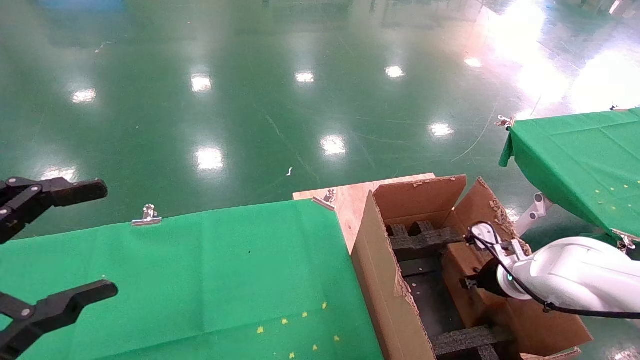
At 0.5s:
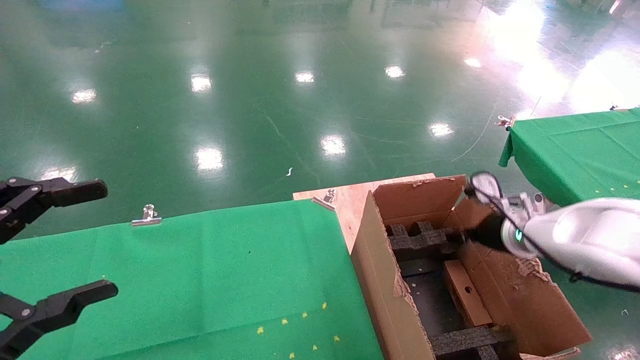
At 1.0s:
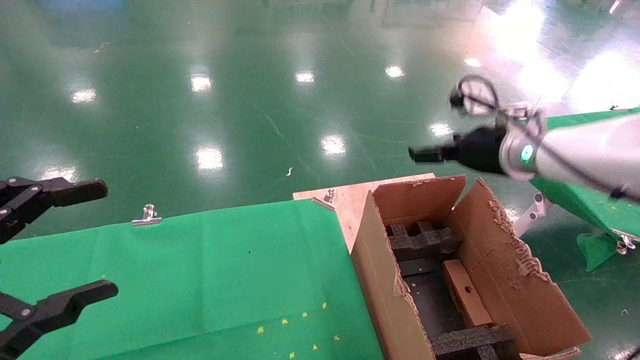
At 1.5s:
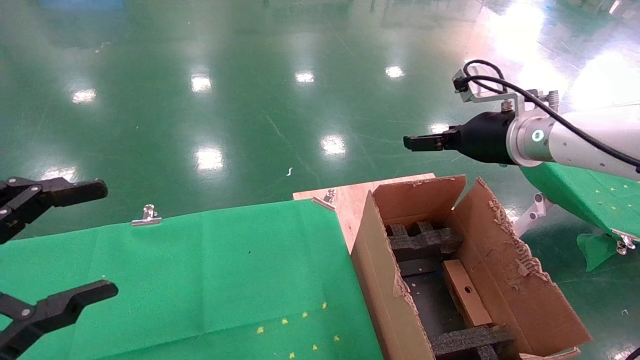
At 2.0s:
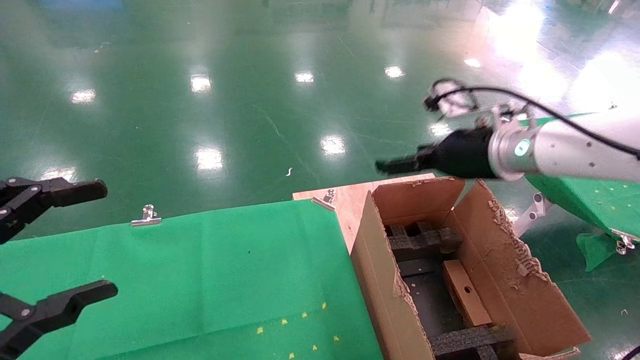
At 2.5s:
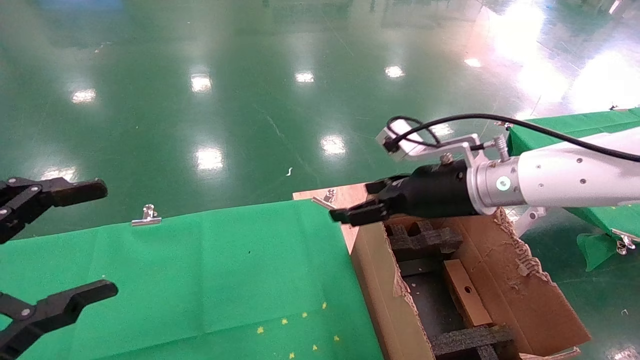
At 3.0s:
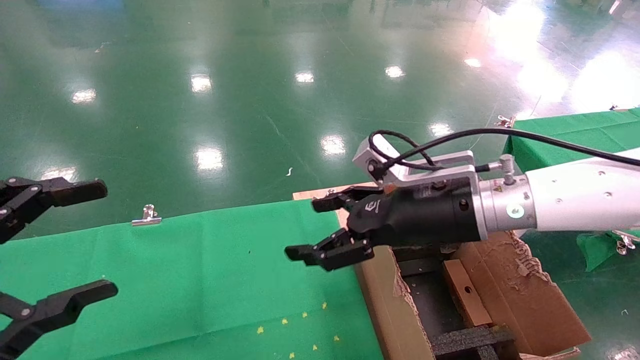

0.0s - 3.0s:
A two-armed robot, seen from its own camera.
Task of the whole recording: using a robotic arm to pick up a cardboard box and palace it the carton.
0.0s - 1.5s: The right gripper travels upward by approximately 25 cm, and opens up.
1.5s - 3.0s: The right gripper shifts some 15 cm to the left, backward and downward.
